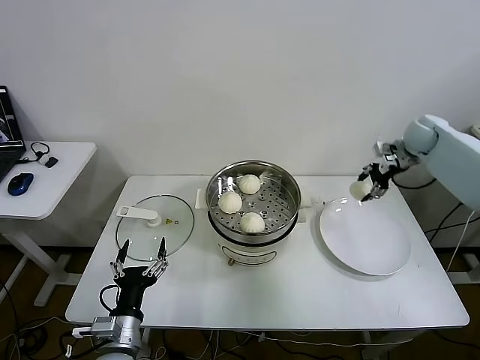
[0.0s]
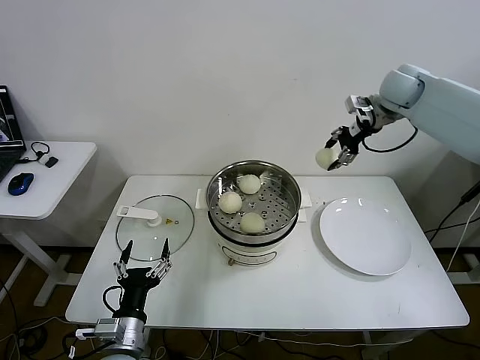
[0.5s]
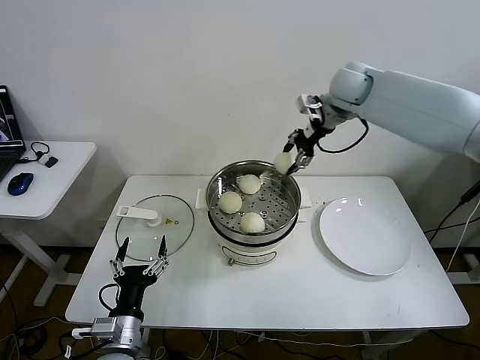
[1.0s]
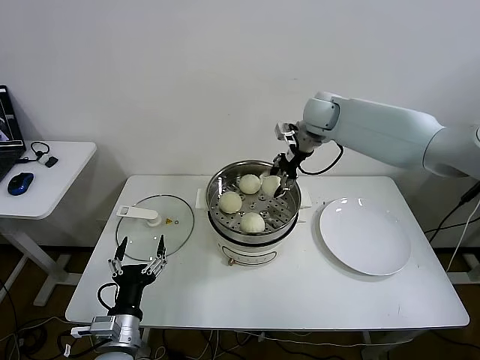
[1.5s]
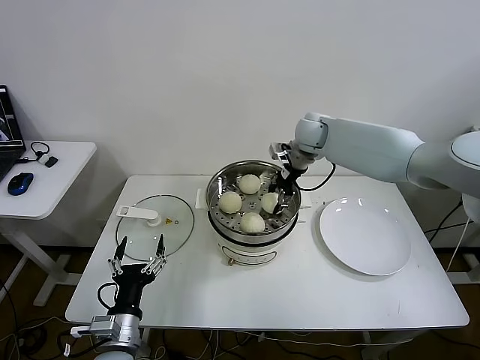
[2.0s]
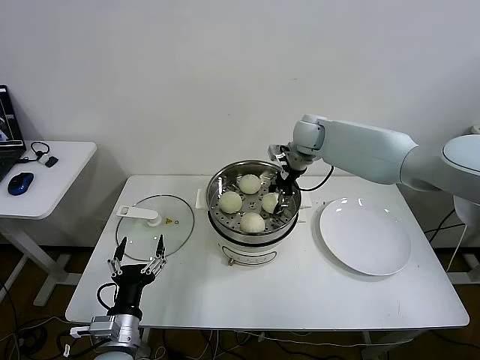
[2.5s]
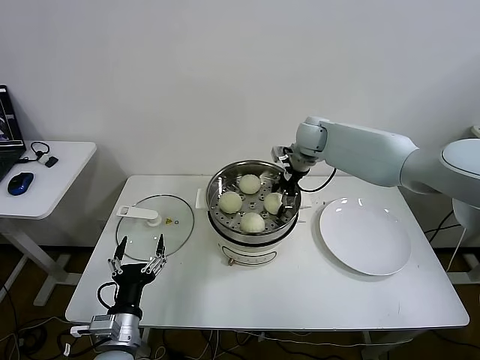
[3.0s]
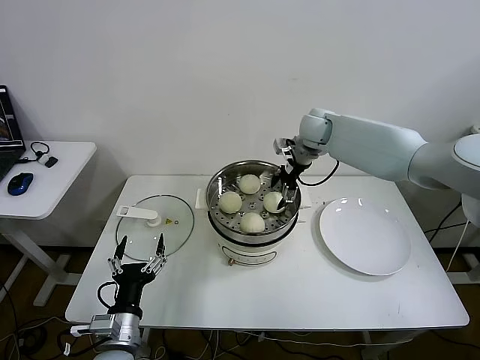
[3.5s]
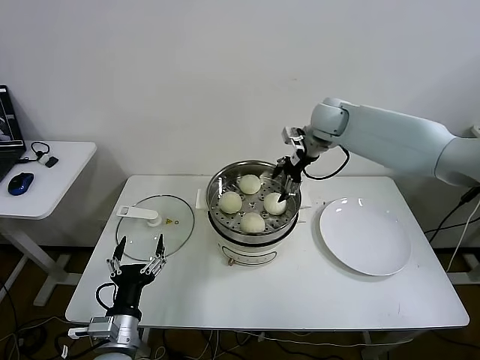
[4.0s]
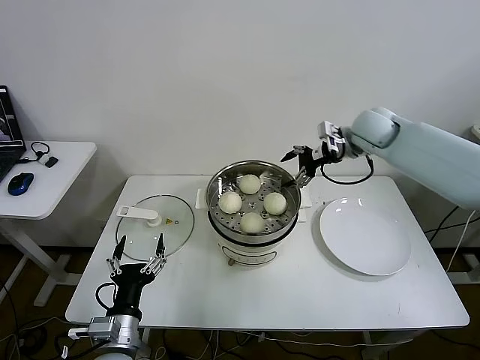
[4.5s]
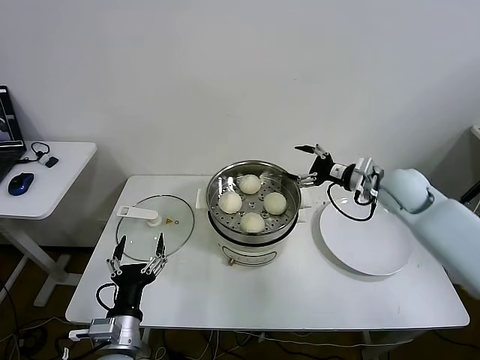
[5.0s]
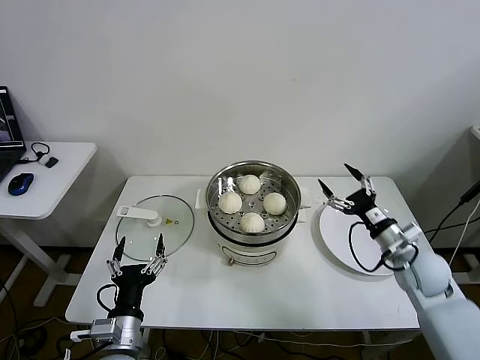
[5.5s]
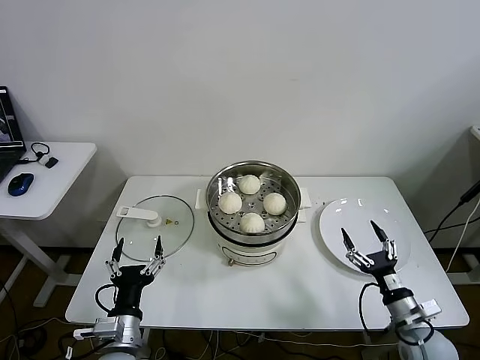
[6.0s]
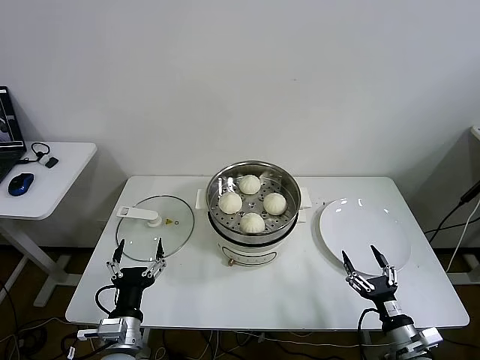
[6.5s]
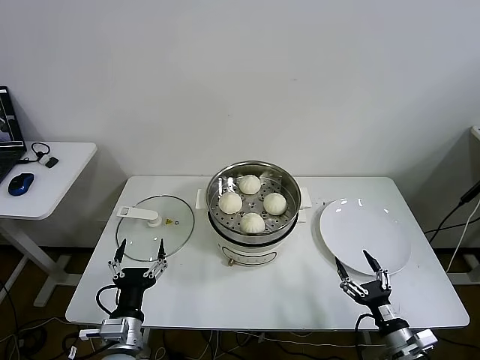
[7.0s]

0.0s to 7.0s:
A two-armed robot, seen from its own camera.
Task of the whole recording: take steamed baozi put them in steamer.
Step, 0.0s to 3.5s: Place the baozi on the steamer with right gripper.
0.0s to 2.0s: The right gripper shifts some 25 cm to the left.
2.0s to 3.5s: The right gripper opens up.
3.5s to 5.0s: The right gripper goes about 20 cm backward and to the right.
5.0s to 7.0s: The right gripper shifts some 40 cm backward and downward.

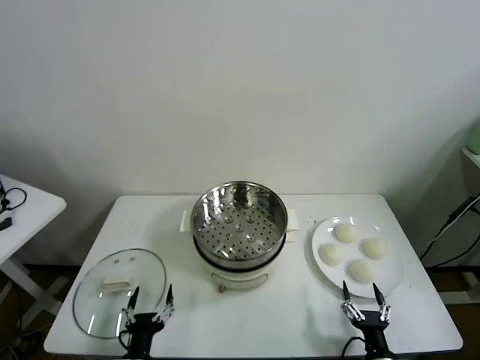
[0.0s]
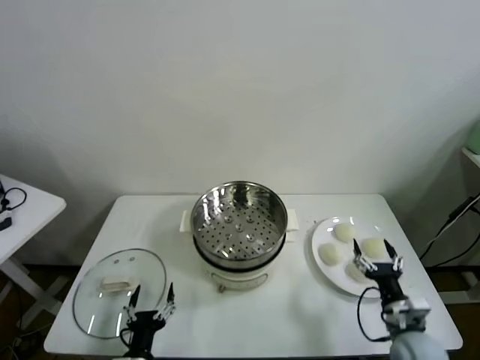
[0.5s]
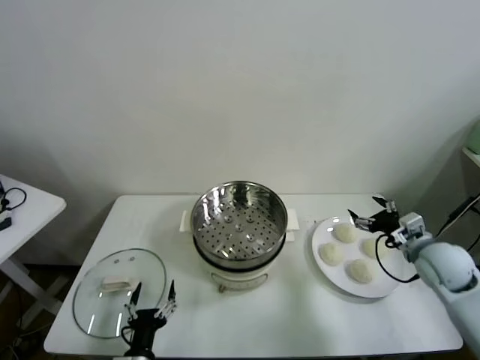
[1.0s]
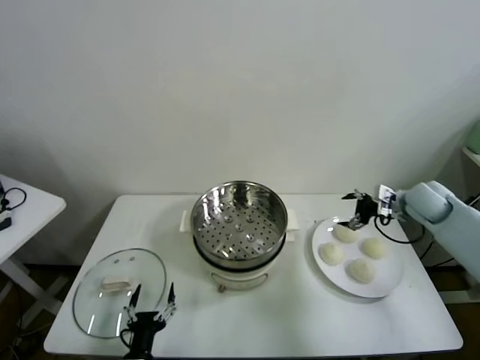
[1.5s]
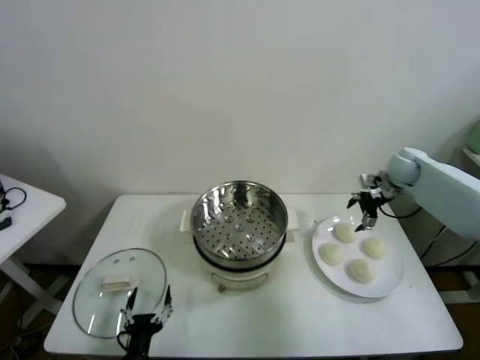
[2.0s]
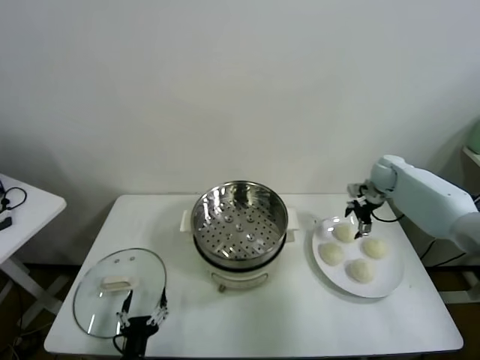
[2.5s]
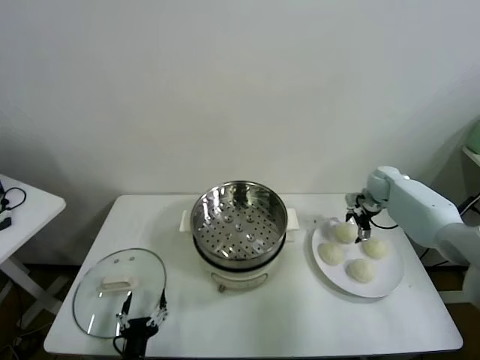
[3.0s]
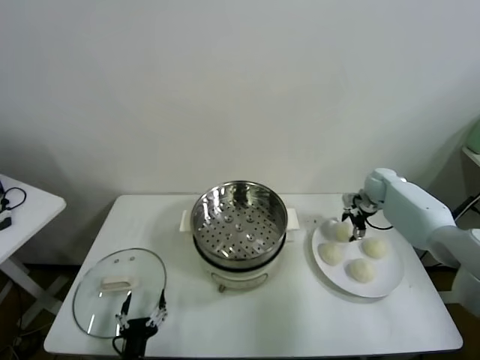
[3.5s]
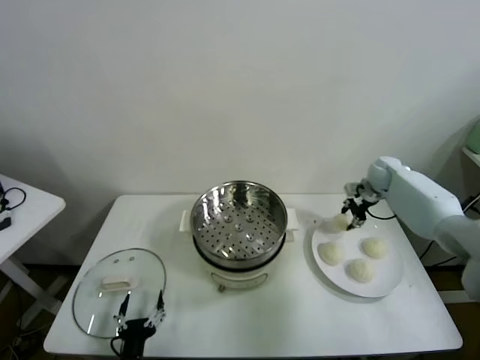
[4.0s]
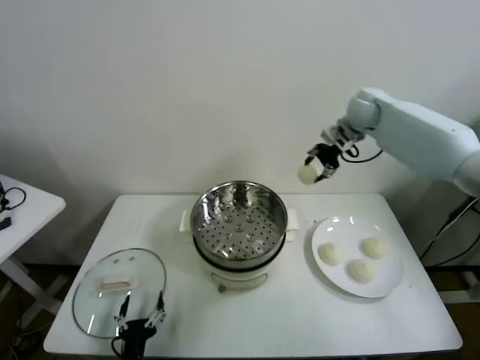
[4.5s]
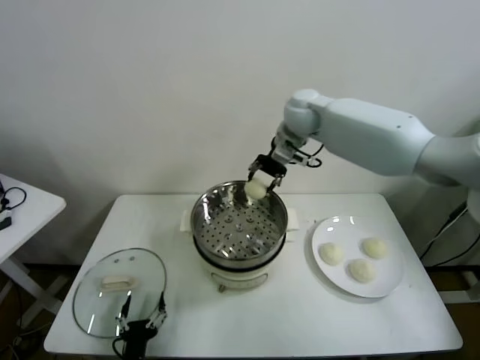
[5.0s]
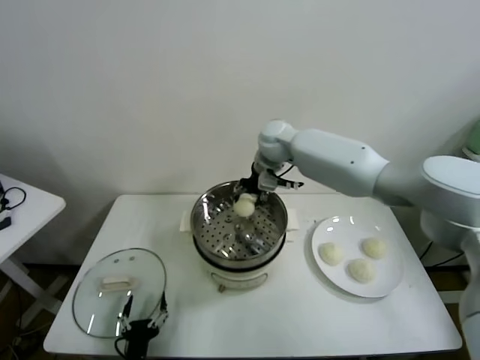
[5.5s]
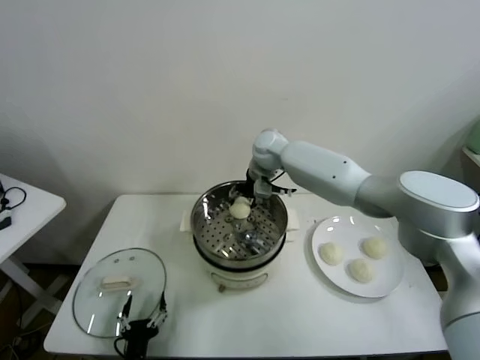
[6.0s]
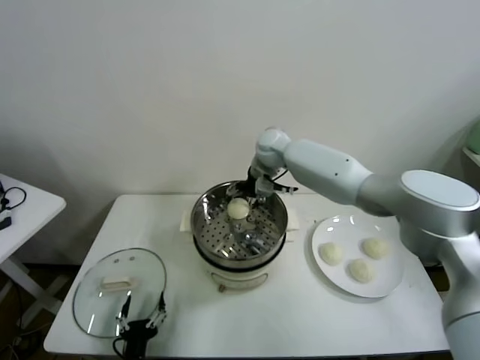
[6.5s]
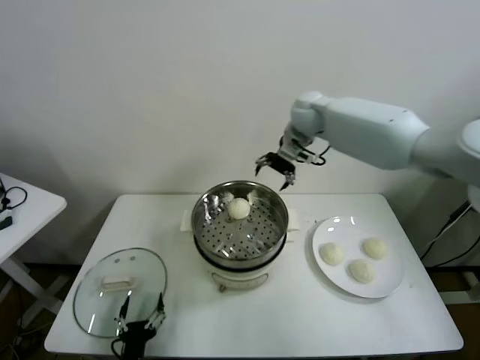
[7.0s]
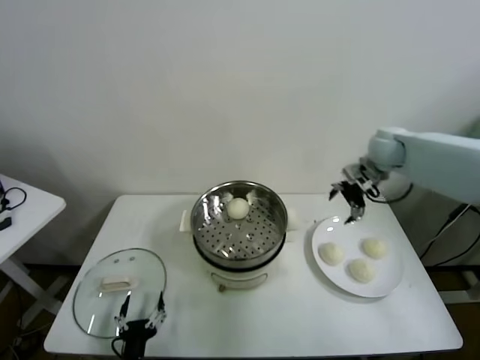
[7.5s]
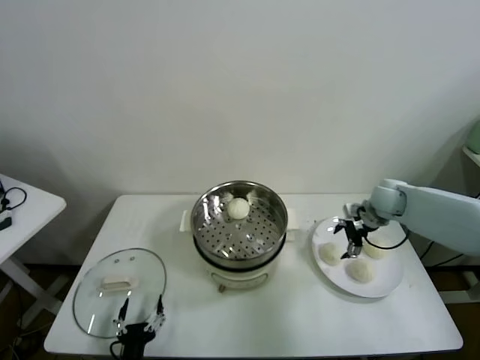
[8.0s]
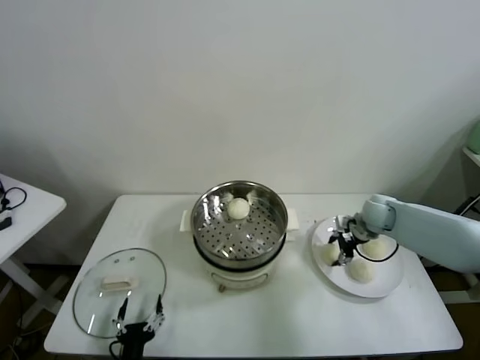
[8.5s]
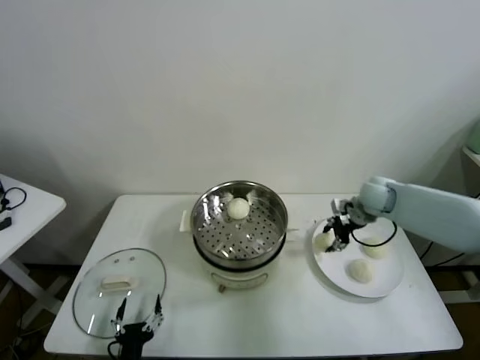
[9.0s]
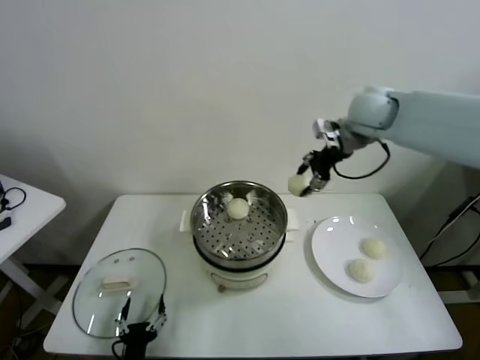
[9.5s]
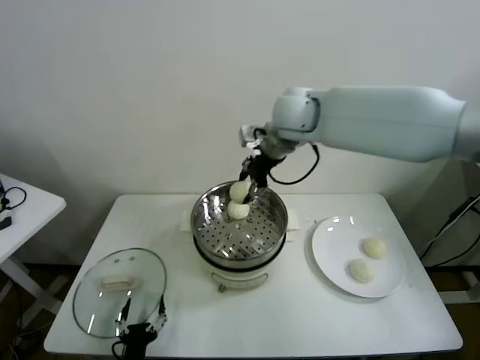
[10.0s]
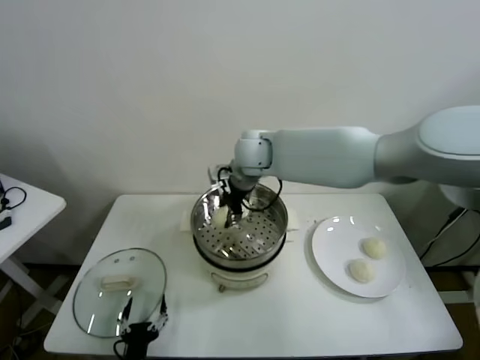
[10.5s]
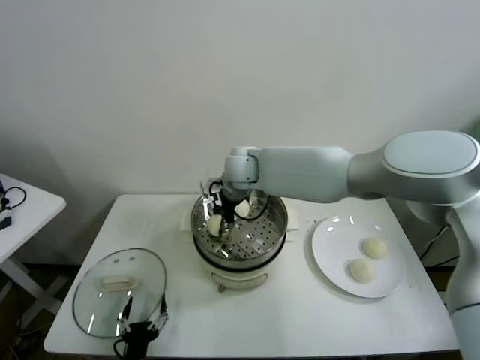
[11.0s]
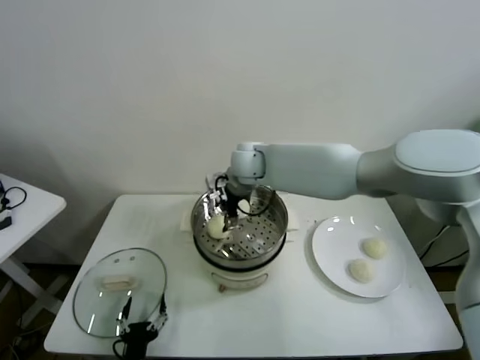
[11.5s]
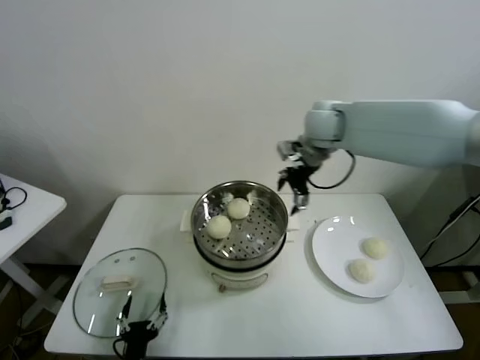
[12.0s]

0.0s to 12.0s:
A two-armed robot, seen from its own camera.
Task of the whole recording: take steamed baozi put them in steamer.
Step, 0.0s to 3.5s: Grasp the baozi in the plate with right gripper.
Step, 4.0s to 6.0s: Place the baozi on the steamer with right gripper.
Step, 6.5s to 8.5s: Grasp the baozi in the plate with right gripper.
Step, 9.0s to 11.0s: Place the baozi on the steamer with right gripper.
2.0s to 4.0s: The right gripper travels downward by roughly 5 cm, and closes.
4.0s to 6.0s: The right gripper is displaced to the left by some 35 cm.
6.0s to 8.0s: The right gripper shifts roughly 30 cm to the right, and opens its fingers.
8.0s to 10.0s: The right gripper moves to the left and upward, about 35 cm, and closes.
10.0s to 12.0s: The right gripper goes approximately 5 cm to the right, and opens up.

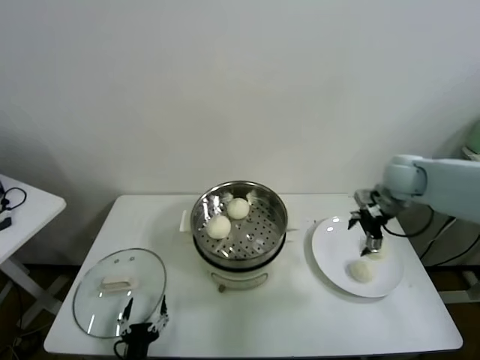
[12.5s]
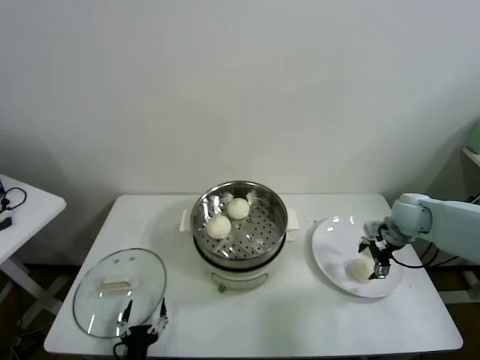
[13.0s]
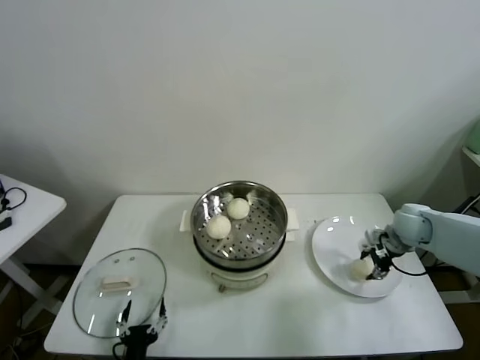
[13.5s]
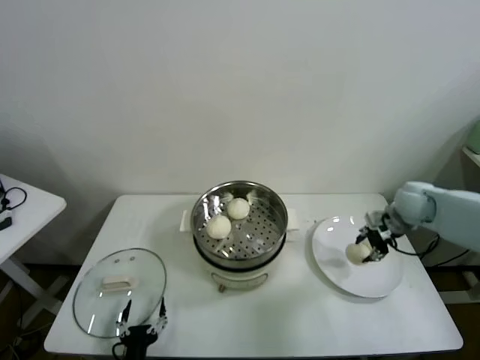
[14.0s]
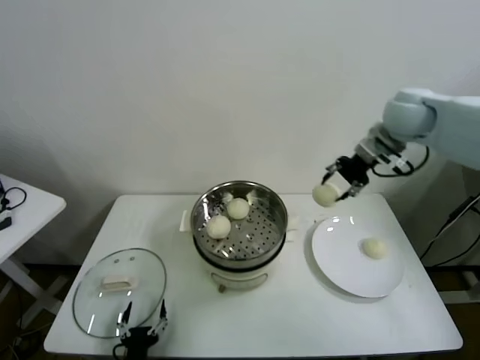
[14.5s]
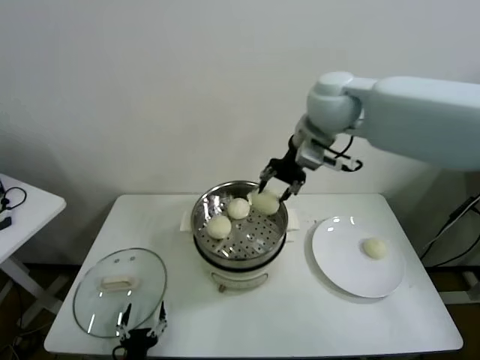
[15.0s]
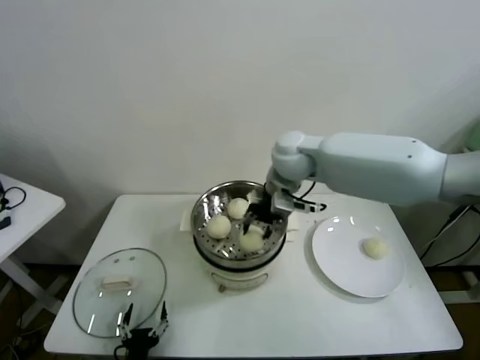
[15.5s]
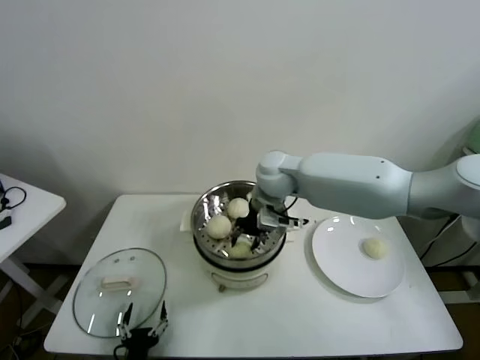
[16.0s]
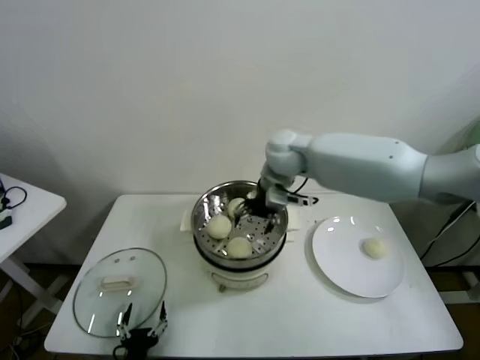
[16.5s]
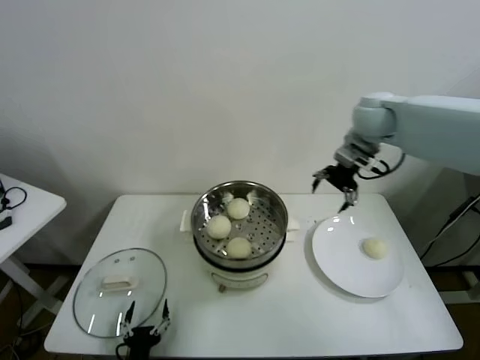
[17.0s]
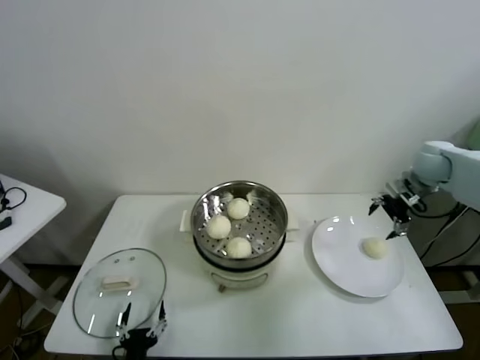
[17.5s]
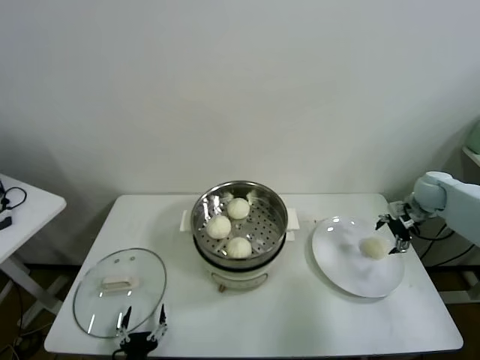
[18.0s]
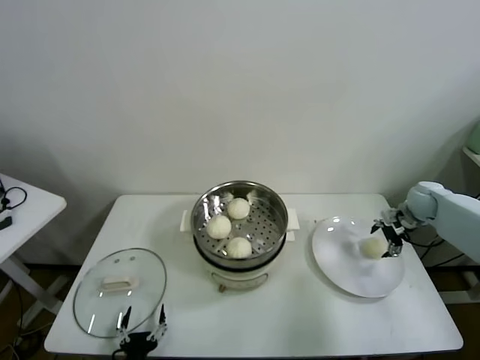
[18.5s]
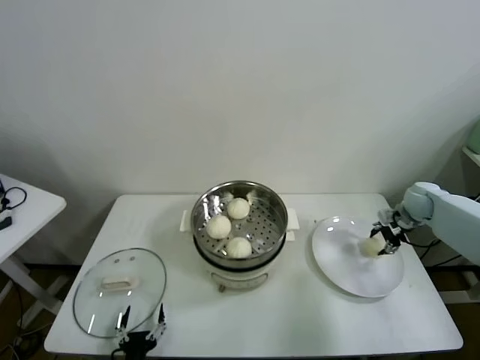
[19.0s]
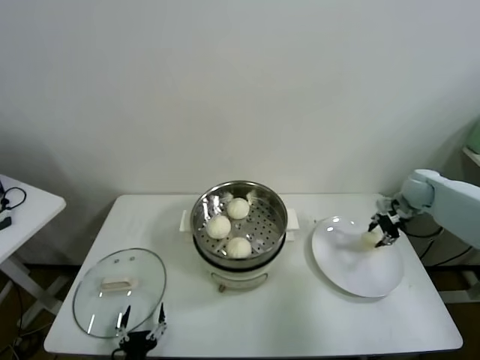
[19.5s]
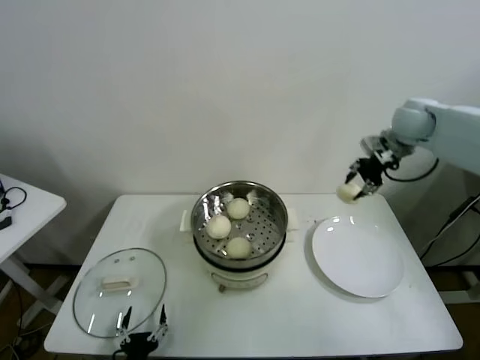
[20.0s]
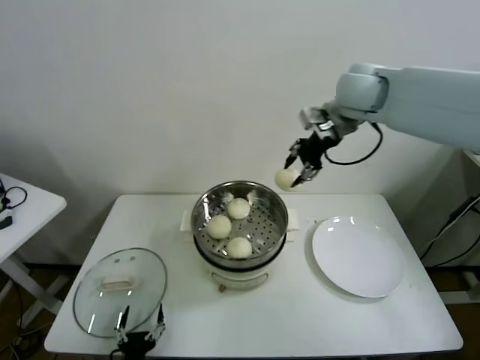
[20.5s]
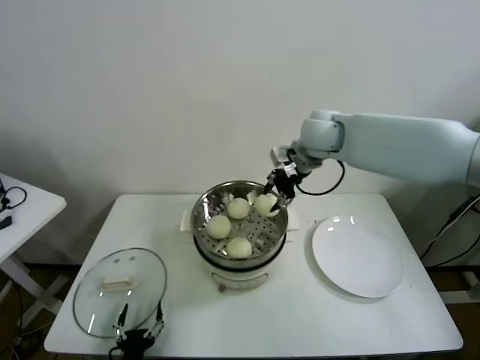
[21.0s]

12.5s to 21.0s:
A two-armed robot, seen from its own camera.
Task of the whole recording: take steamed baozi put them in steamer.
Step, 13.5s to 16.0s: Place the baozi on the steamer with right gripper.
Step, 16.5s to 18.5s: Grasp the baozi in the plate with right gripper.
12.5s to 14.5s: The right gripper is displaced upward by some 15 cm, and closes up.
14.5s to 16.5s: The right gripper is displaced to the left by about 25 cm, and opens its fingers.
16.5s to 19.0s: The right gripper is displaced to the right and downward by about 40 cm, and closes.
19.0s to 21.0s: The right gripper is displaced to the left and upward by about 40 cm.
